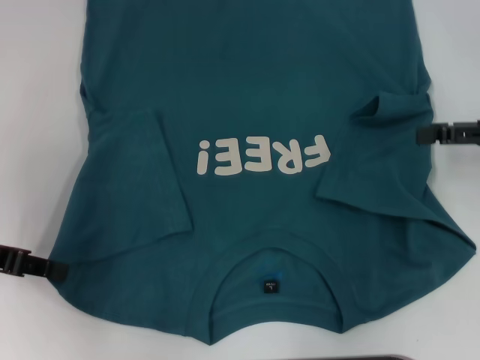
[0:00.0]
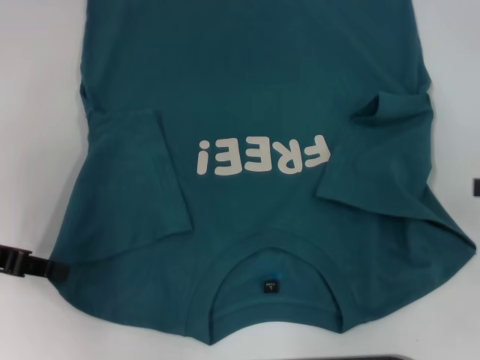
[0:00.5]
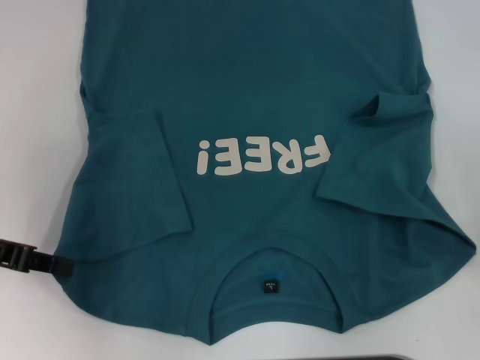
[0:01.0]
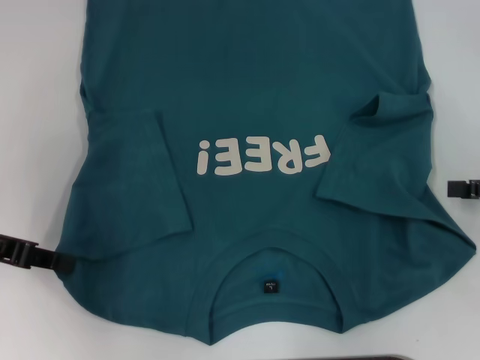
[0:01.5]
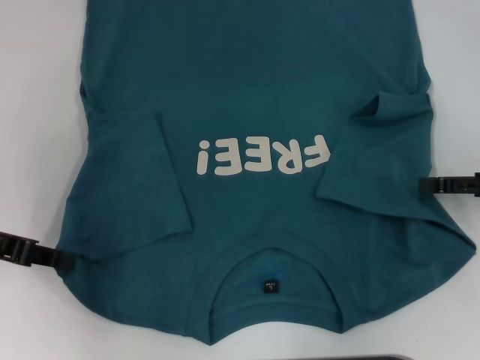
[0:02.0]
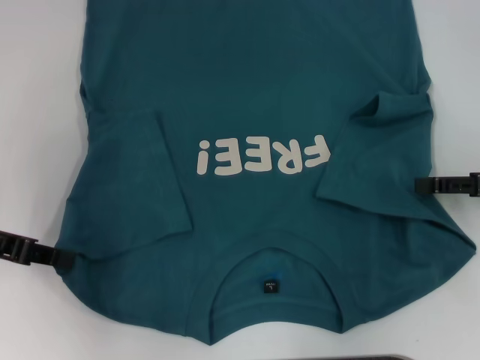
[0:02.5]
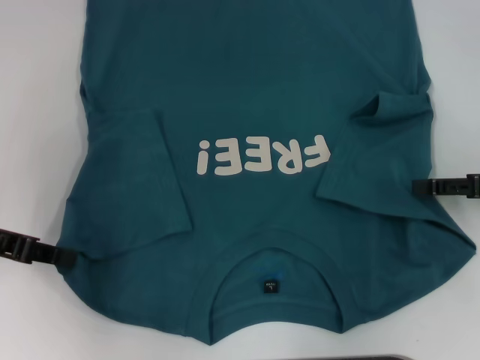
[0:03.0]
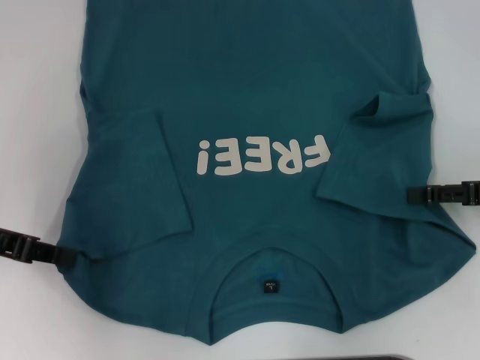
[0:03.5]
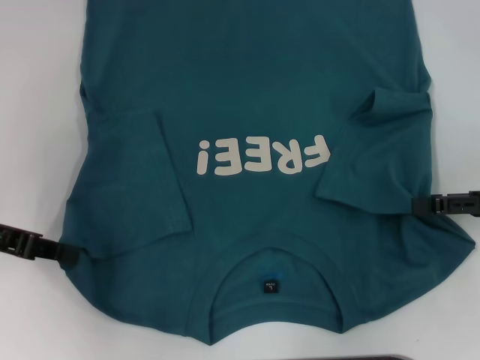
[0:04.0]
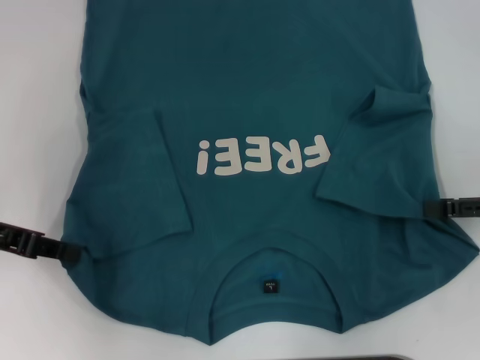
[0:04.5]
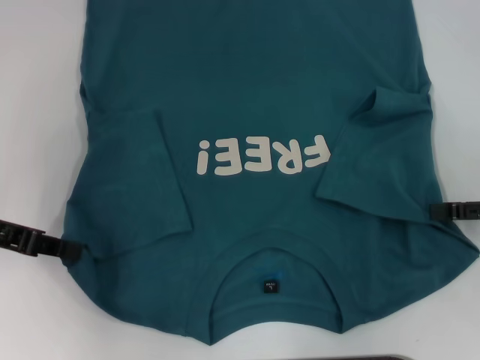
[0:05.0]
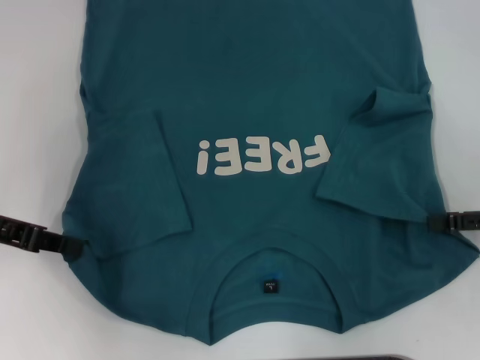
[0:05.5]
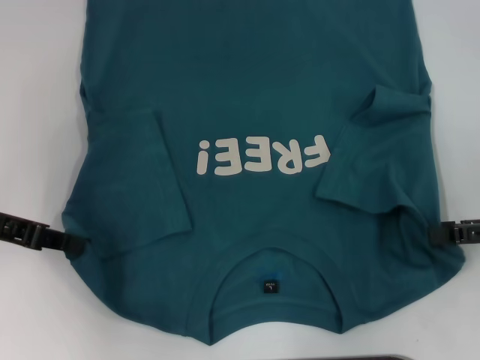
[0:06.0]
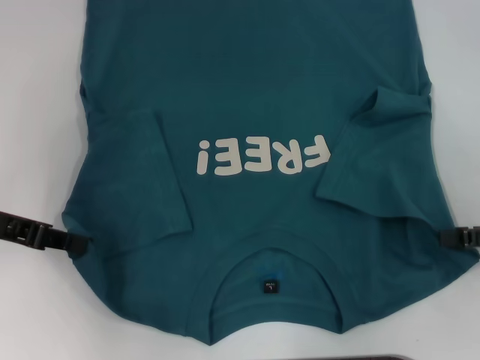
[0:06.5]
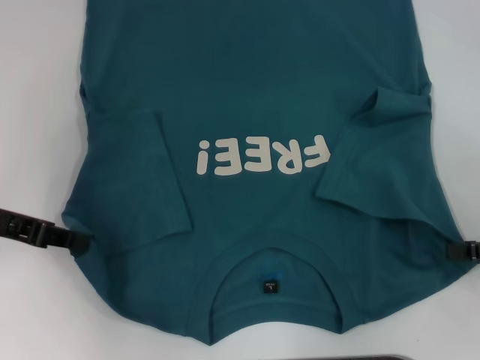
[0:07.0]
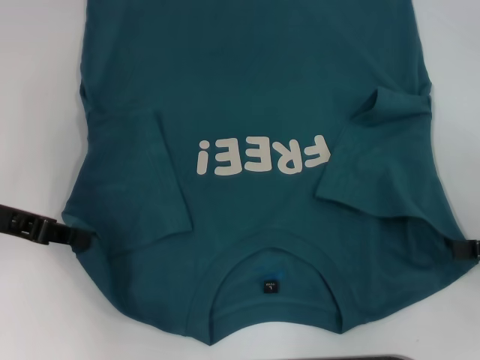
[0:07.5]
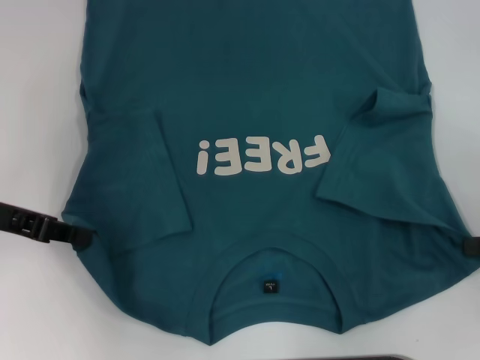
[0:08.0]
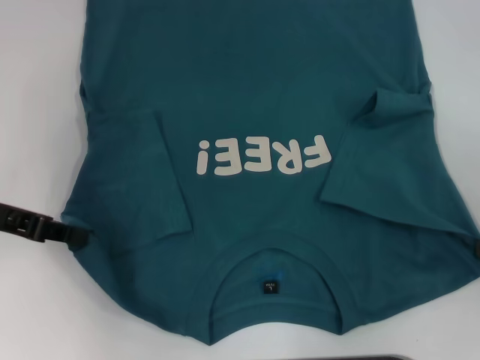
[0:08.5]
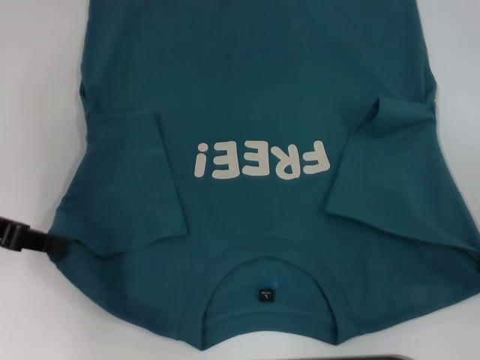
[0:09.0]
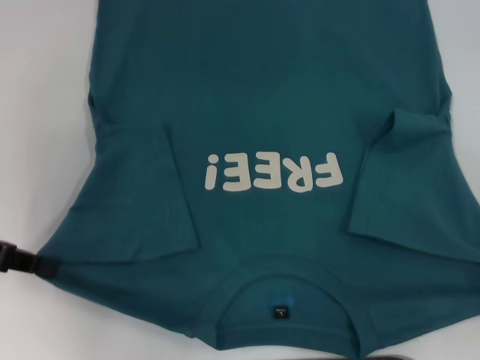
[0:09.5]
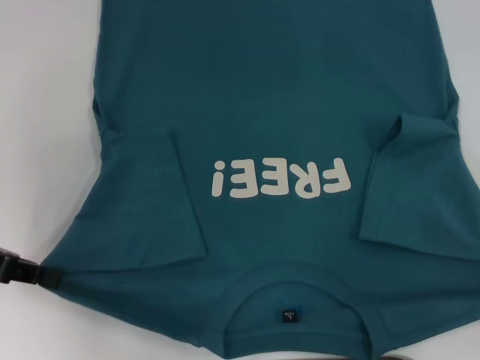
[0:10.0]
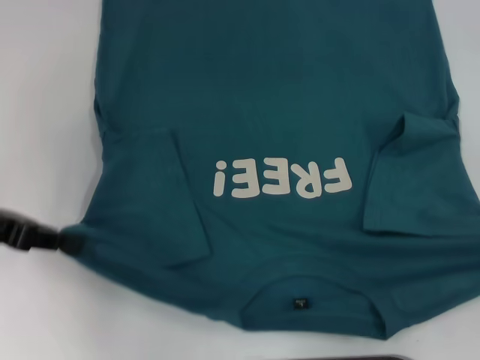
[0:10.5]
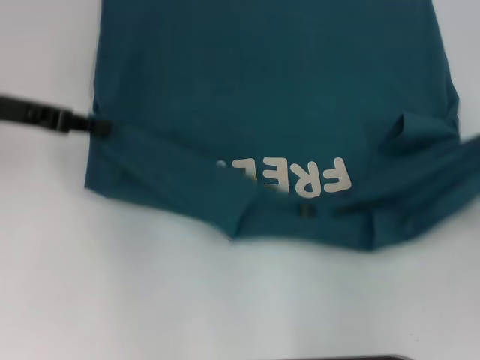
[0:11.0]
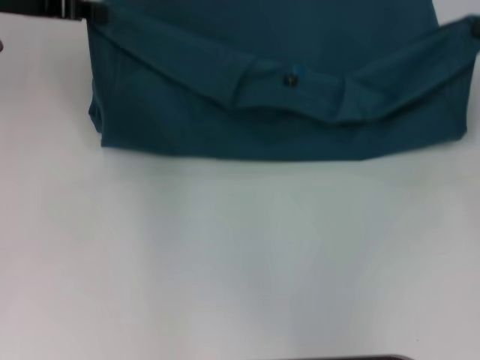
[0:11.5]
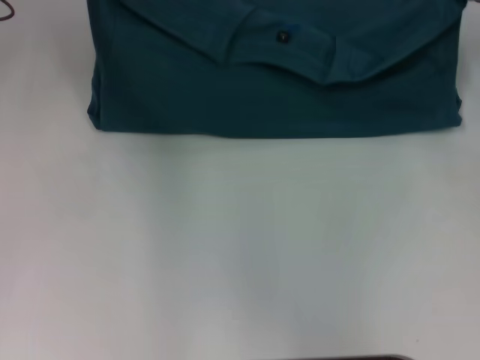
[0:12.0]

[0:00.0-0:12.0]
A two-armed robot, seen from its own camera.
Step, 0:00.5 to 0:08.0: Grab the bottom right corner with your right hand.
0:00.0 to 0:02.0: The right gripper travels backward and back again, approximately 10 cm each way.
0:02.0 to 0:06.0: The grippers move only a little.
0:06.0 to 0:08.0: The right gripper closes up.
0:08.0 to 0:10.0: The right gripper shifts about 10 cm backward.
0:10.0 to 0:12.0: The left gripper is displaced forward, upward and to the right by about 20 cm, while the right gripper goes approximately 25 cm forward.

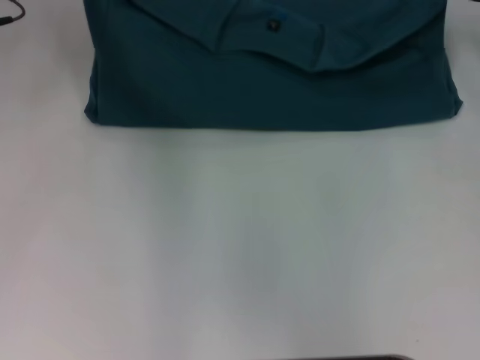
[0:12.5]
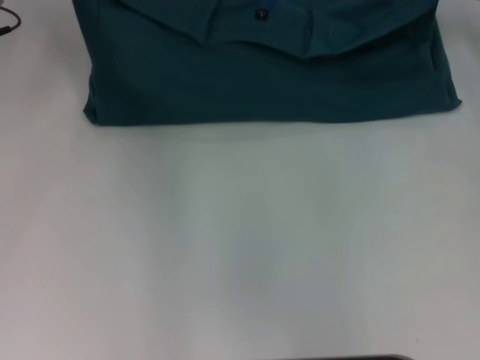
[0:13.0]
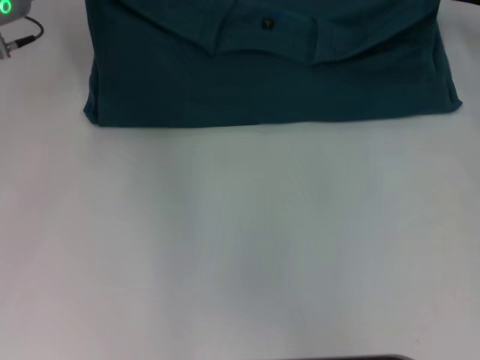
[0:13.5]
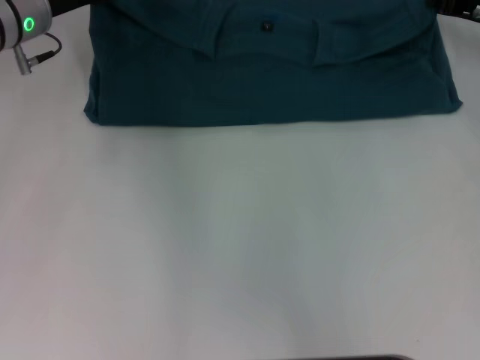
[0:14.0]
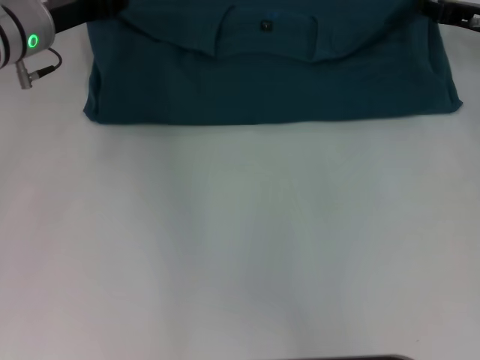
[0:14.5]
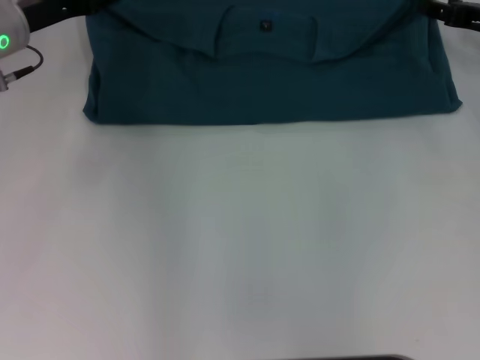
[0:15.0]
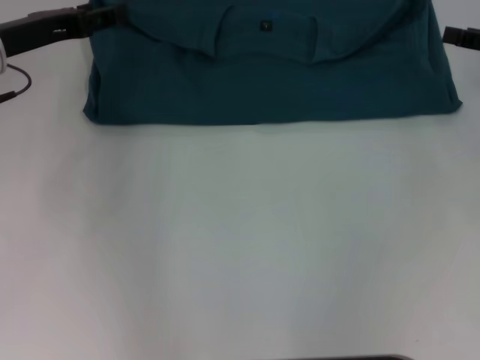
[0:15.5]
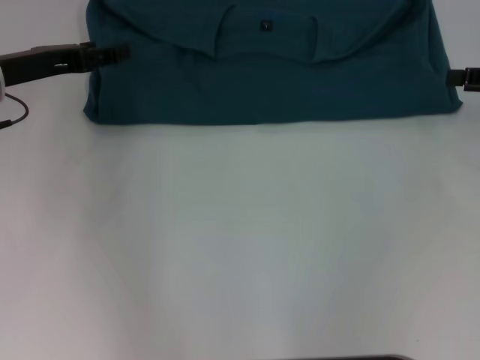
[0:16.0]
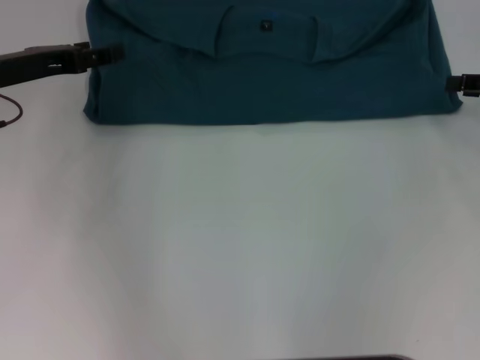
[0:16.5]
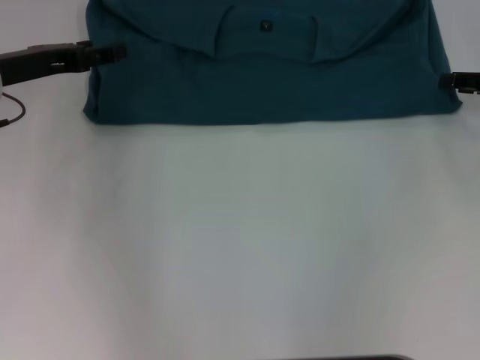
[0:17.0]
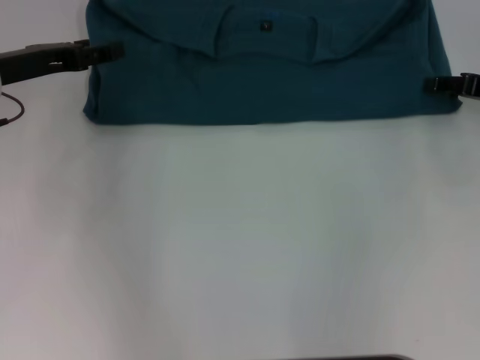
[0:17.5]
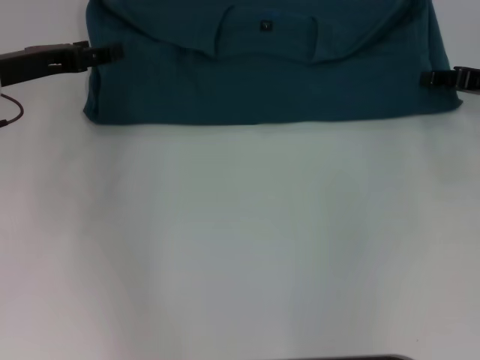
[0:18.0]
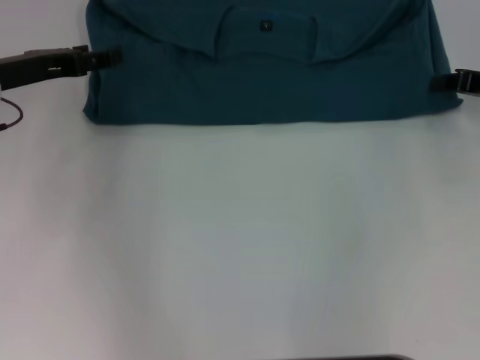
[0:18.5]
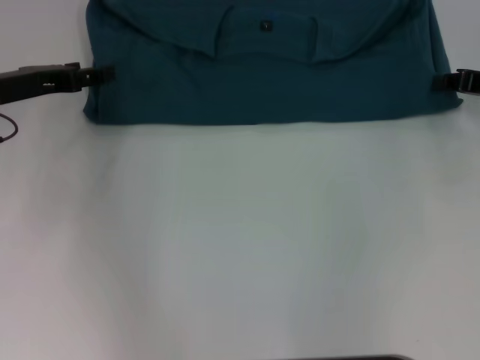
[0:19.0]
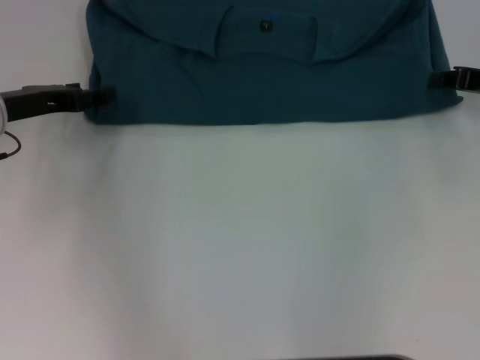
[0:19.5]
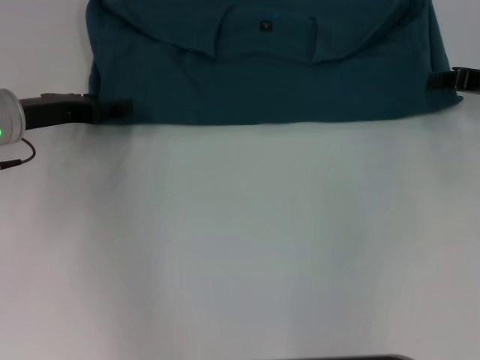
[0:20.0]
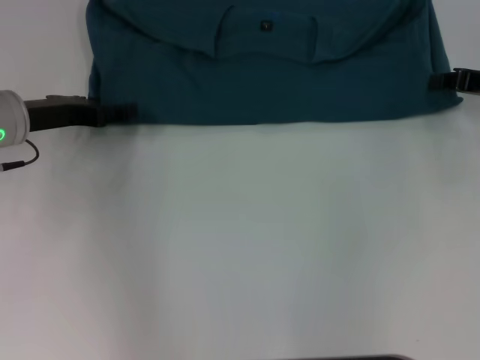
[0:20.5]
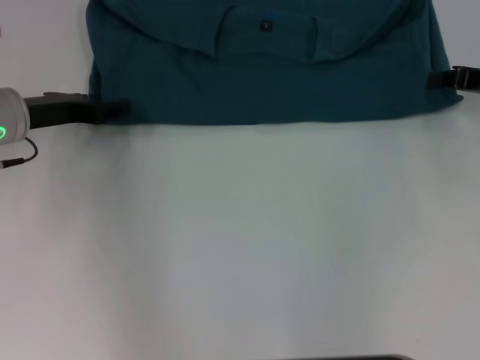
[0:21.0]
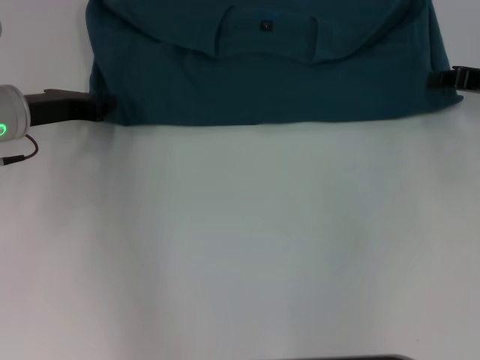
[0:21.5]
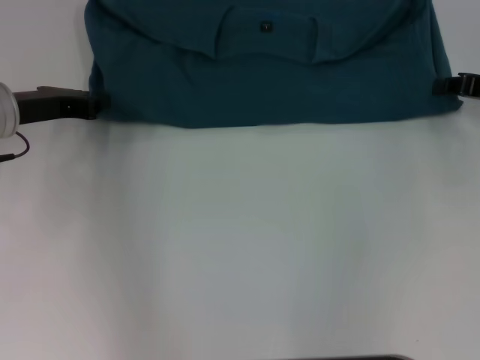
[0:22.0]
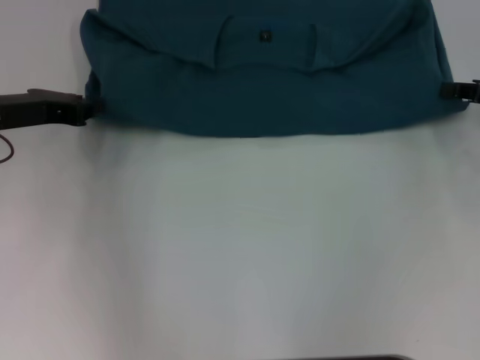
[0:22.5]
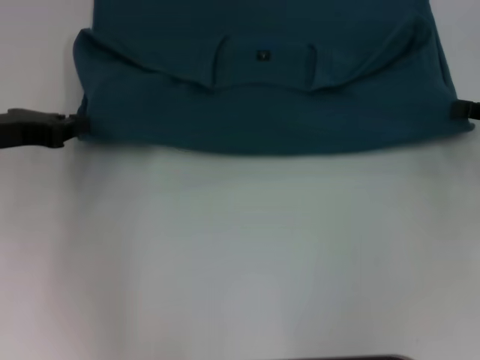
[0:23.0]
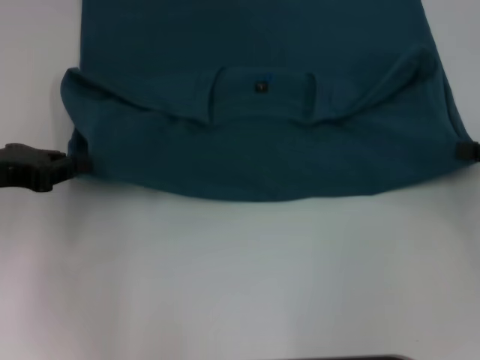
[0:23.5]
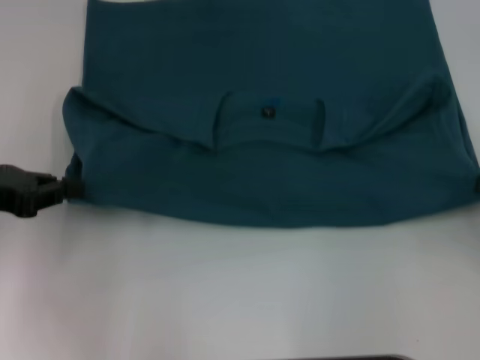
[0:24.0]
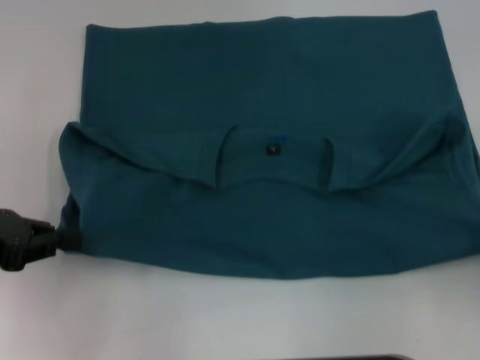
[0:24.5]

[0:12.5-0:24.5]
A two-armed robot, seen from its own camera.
Step, 0:12.5 to 0:15.0: Fold the clothes to the left.
Step, 0:12.5 to 0:15.0: Fold the clothes to the right.
0:12.5 to 0:14.5: The left gripper is displaced downward by approximately 5 cm.
0:14.5 to 0:16.5: The right gripper travels backward and to the right by roughly 10 cm, and opens up. Meanwhile the left gripper goes some 5 cm backward, and opens its fingers.
0:18.5 to 0:20.5: The grippers stay close to where they were, moving slightly.
0:20.5 to 0:22.5: The left gripper closes its fingers.
0:22.5 to 0:24.5: The left gripper moves backward and to the left, about 10 cm. Meanwhile the right gripper heads backward, covering some 15 cm.

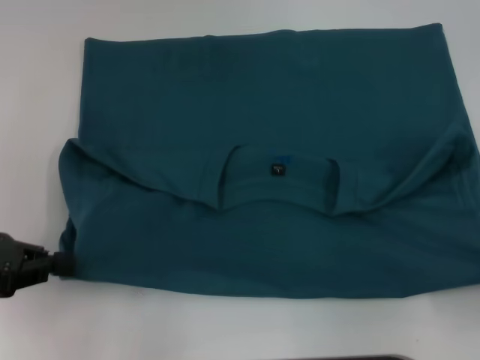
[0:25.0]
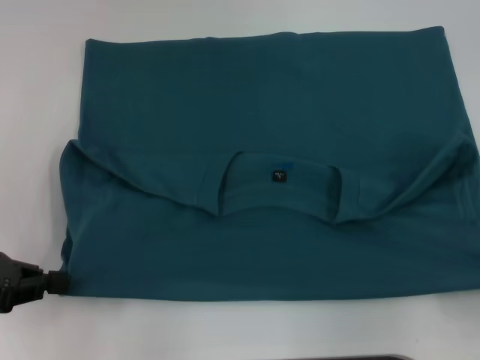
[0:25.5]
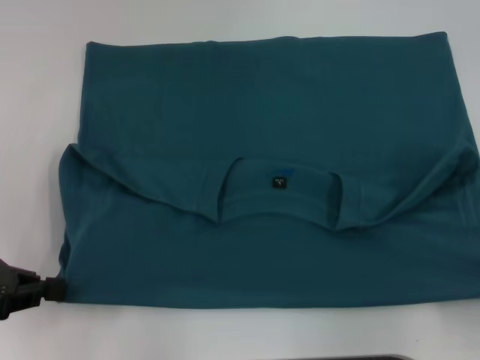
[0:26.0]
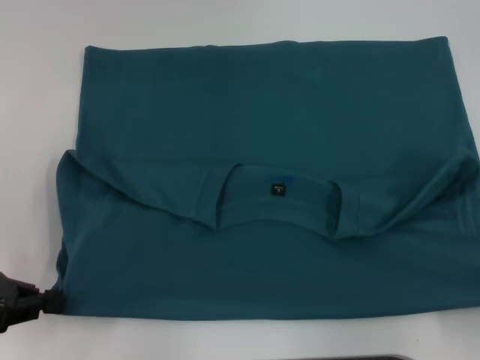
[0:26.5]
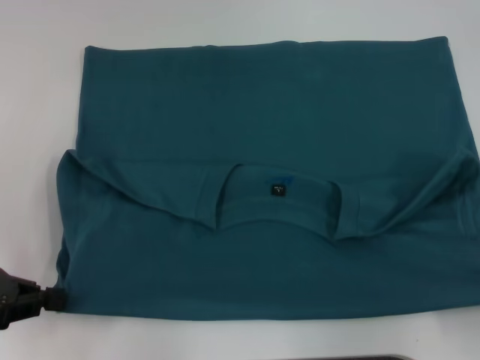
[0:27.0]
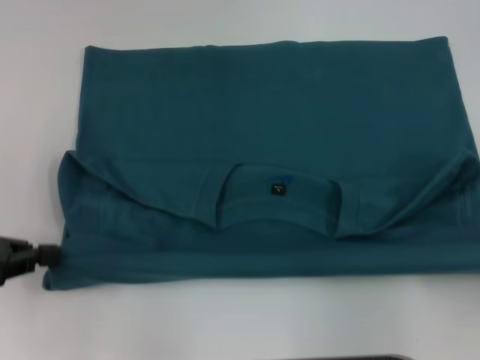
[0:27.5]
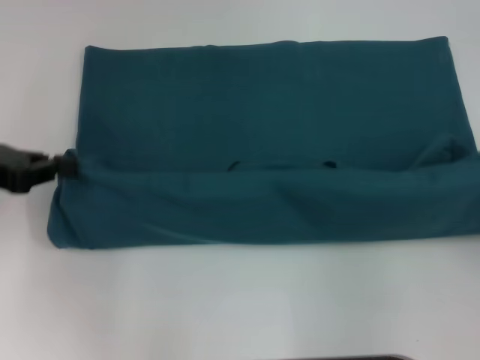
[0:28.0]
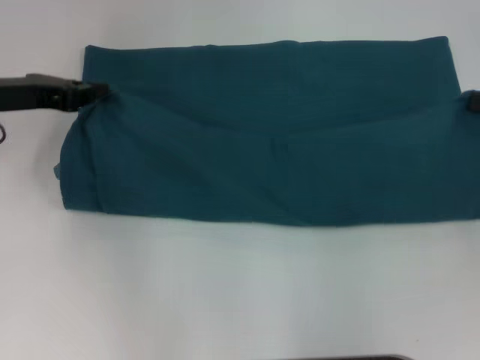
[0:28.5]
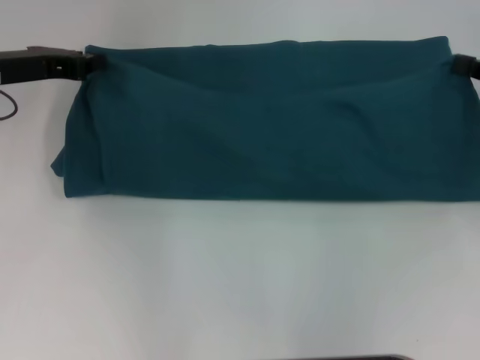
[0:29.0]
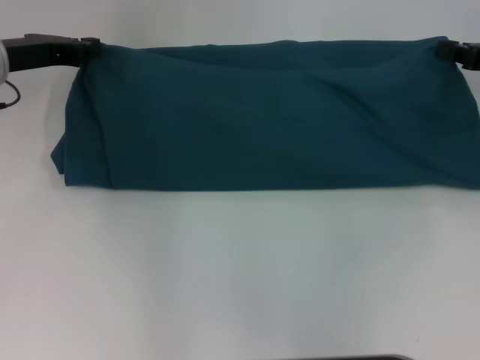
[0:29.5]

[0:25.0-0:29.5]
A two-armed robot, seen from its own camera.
0:25.0 to 0:27.0: The grippers move only a little.
0:27.0 to 0:29.5: The two grippers go roughly 20 cm forward.
